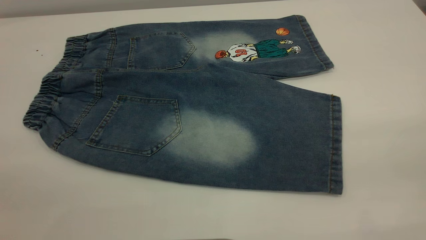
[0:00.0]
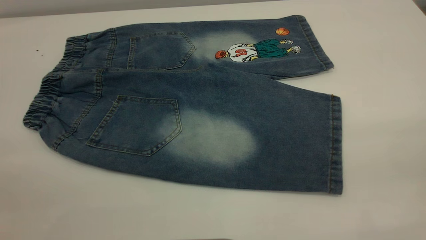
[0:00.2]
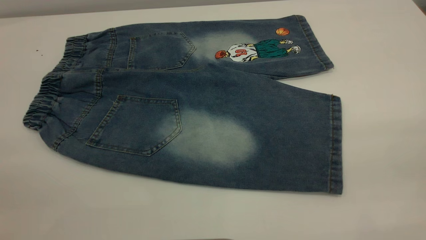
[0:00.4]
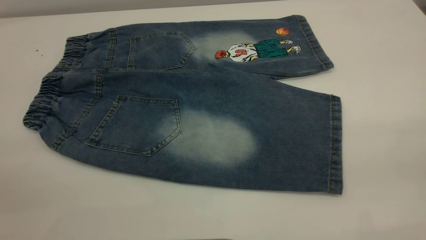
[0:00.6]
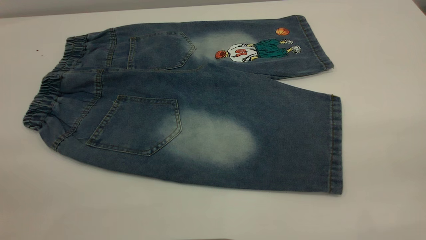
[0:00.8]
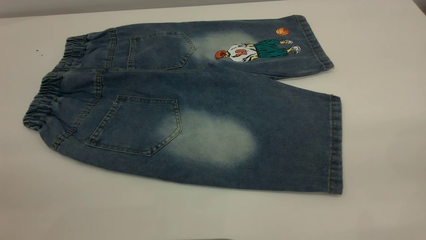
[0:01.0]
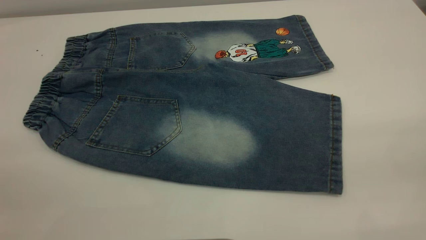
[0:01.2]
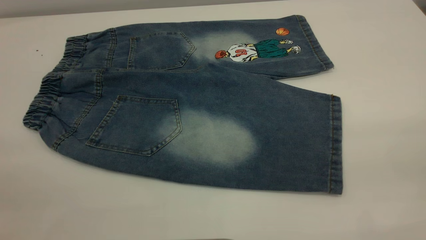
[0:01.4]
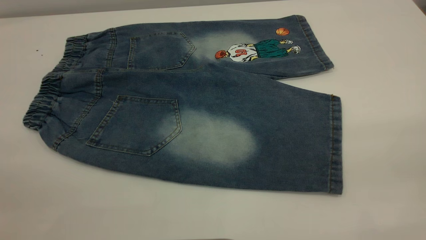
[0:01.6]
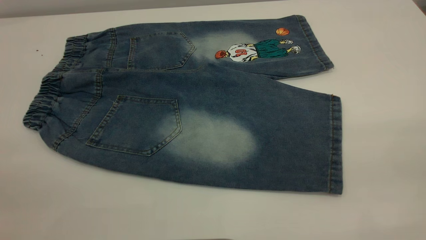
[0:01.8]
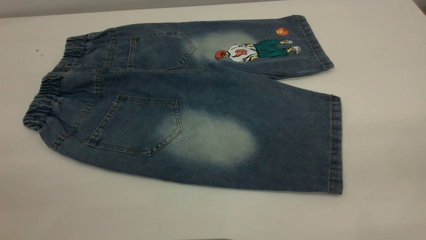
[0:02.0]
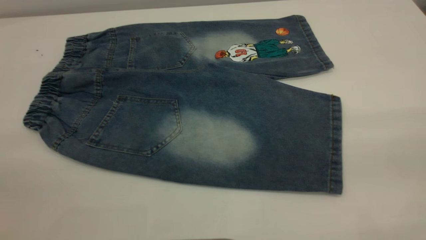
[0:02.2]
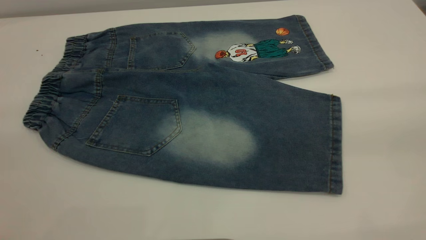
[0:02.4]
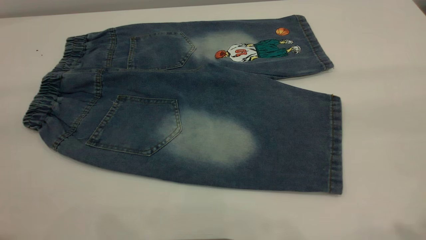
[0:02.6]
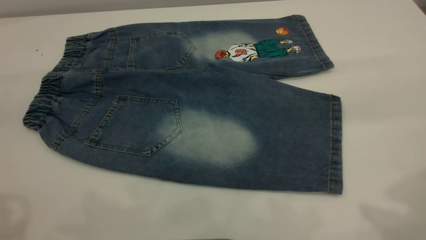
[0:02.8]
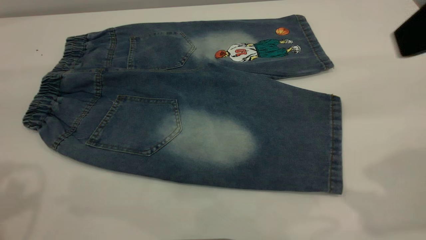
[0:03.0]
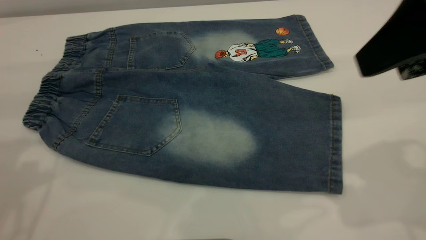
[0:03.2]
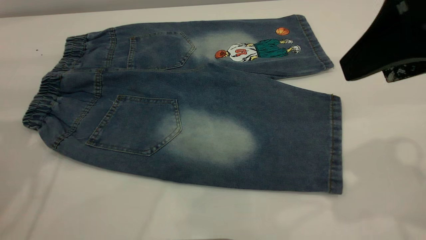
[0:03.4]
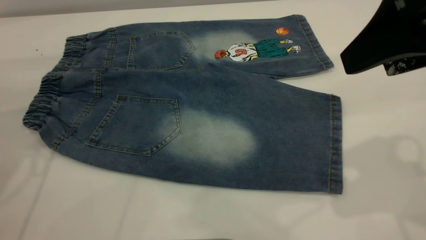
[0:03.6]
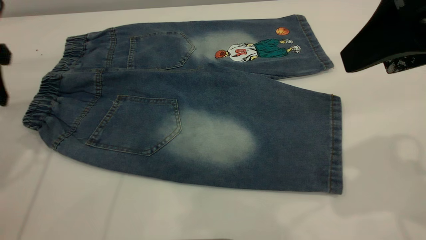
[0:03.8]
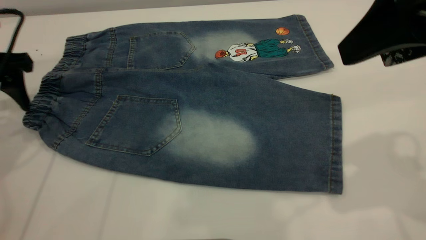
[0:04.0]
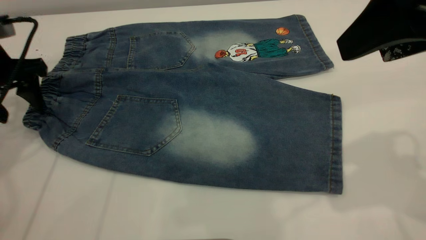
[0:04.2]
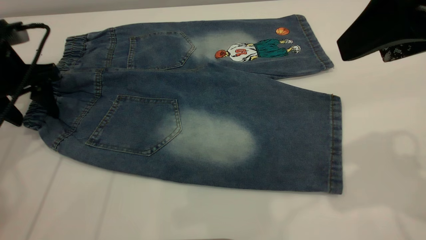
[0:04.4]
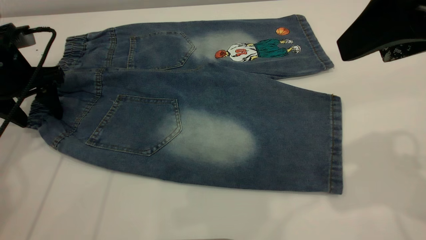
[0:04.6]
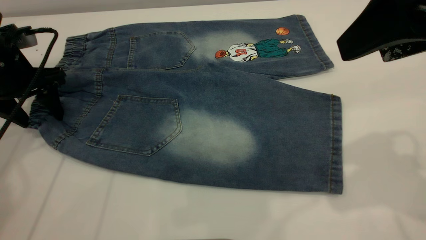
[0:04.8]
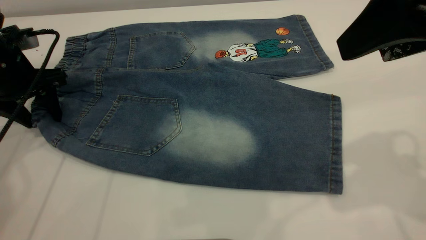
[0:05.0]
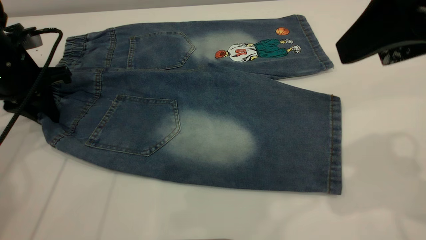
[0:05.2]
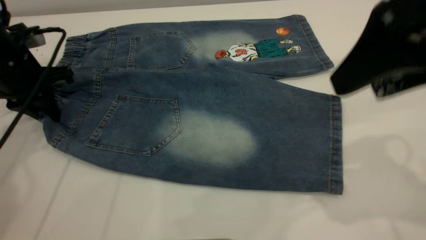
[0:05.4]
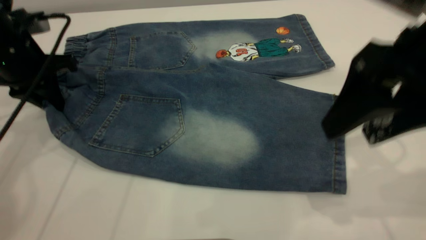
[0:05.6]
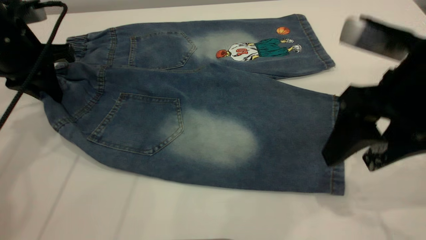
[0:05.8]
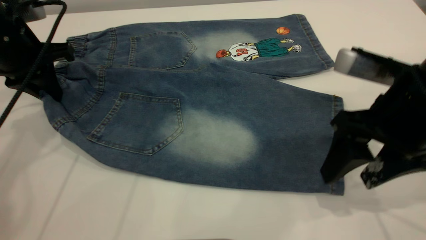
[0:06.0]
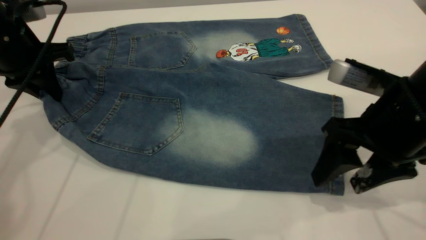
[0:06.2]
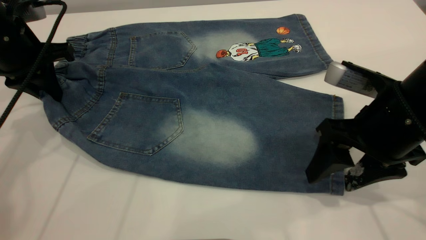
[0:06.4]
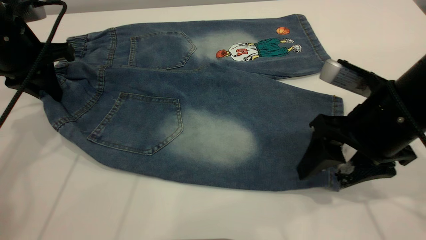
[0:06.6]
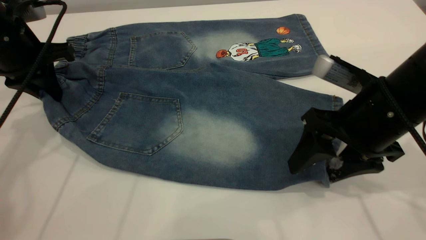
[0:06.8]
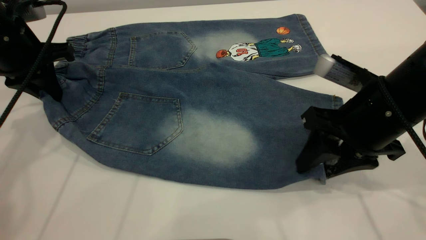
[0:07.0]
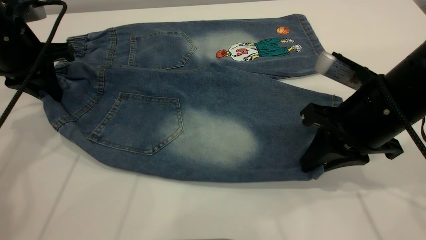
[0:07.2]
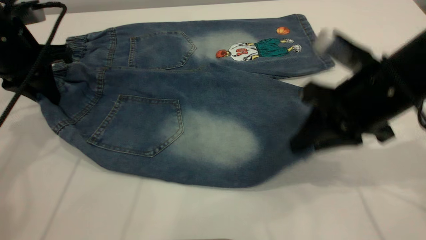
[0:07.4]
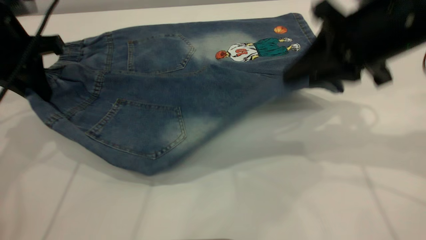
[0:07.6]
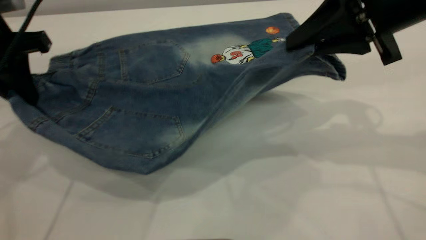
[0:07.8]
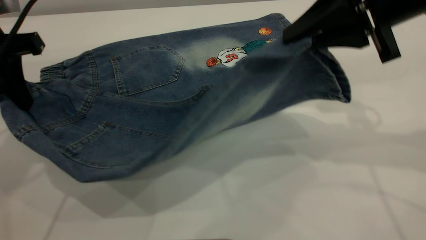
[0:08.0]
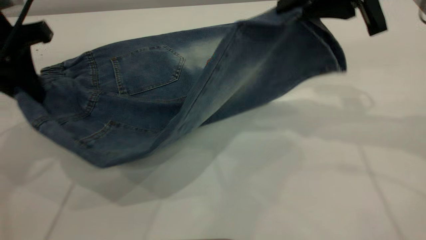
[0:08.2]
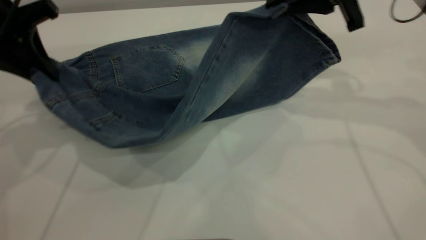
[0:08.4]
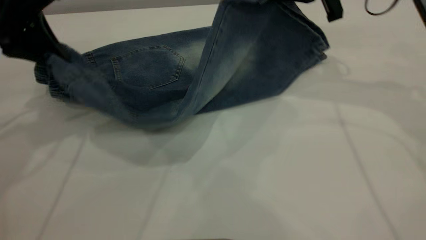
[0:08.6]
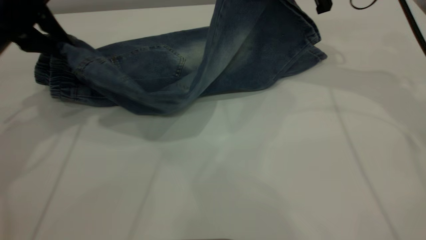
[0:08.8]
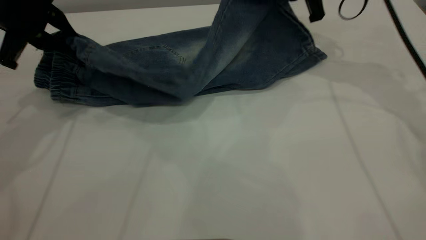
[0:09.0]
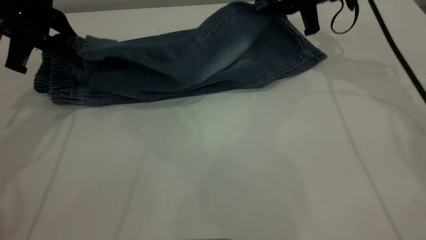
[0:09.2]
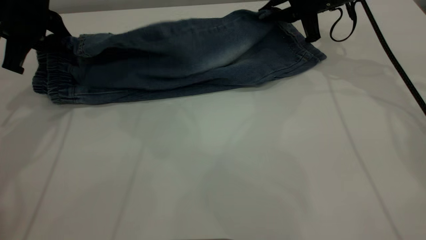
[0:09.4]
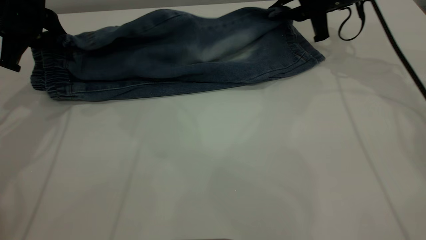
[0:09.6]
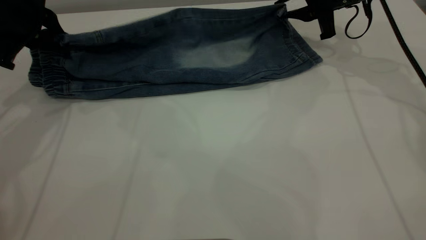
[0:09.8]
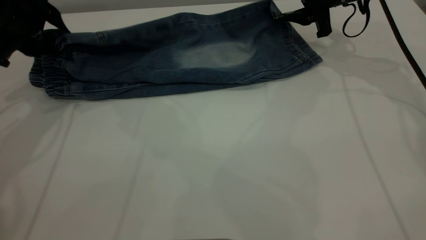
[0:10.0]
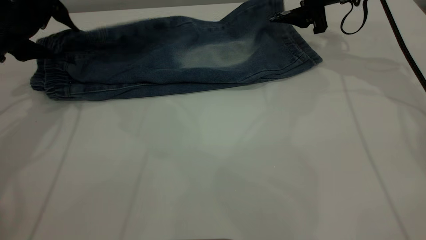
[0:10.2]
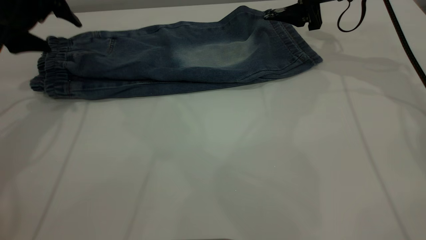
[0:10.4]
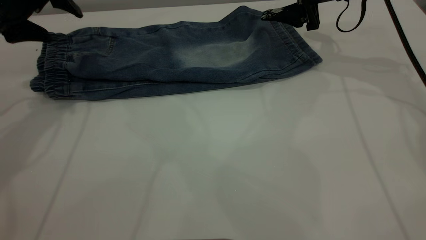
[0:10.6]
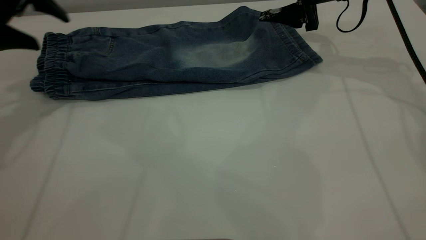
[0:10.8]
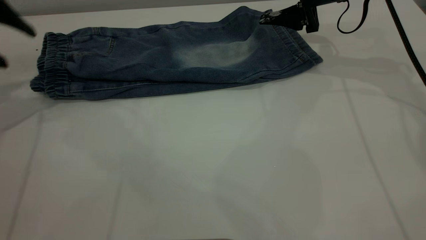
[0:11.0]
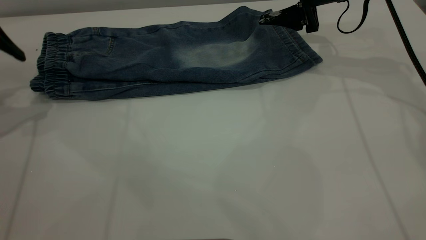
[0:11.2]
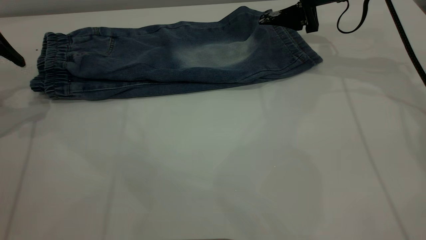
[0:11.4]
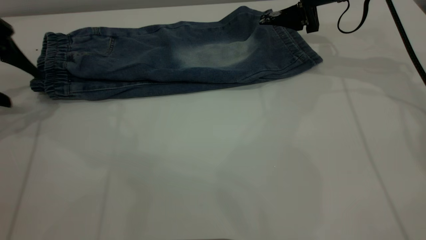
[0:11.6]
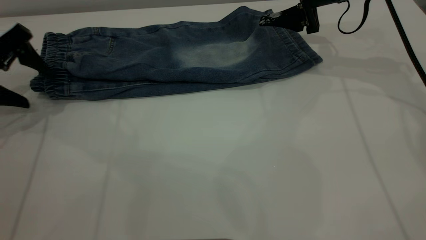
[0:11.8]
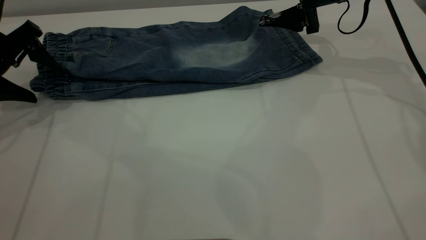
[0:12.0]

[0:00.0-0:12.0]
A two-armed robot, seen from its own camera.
Step, 0:00.0 to 0:11.0: Fold the bottom of the pants upward.
0:00.0 to 0:01.6: Both grippers stay put.
0:01.6 to 0:03.0: The right gripper shifts roughly 20 cm forward.
0:03.0 to 0:04.4: The left gripper shifts roughly 25 cm downward and forward.
0:04.4 to 0:06.0: The left gripper closes its fingers, while the right gripper moves downward, approximately 15 cm.
0:06.0 to 0:07.6: The right gripper is displaced upward and forward by roughly 10 cm, and closes its fingers.
0:07.6 to 0:09.0: The right gripper travels forward by some 20 cm.
0:09.0 to 0:10.4: The right gripper opens, while the left gripper opens up.
0:10.4 to 0:12.0: The left gripper goes roughly 10 cm to the left and downward.

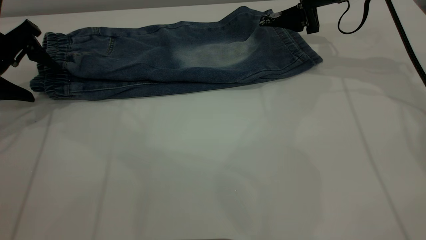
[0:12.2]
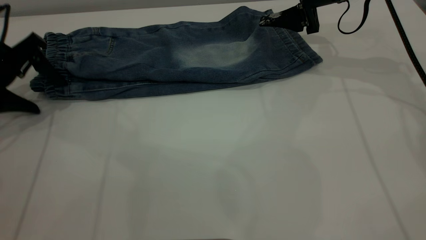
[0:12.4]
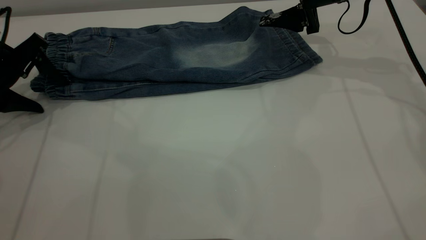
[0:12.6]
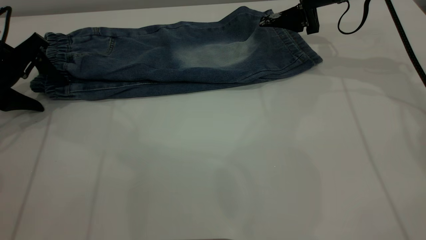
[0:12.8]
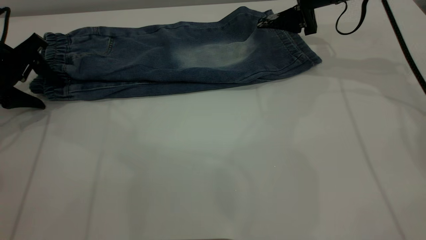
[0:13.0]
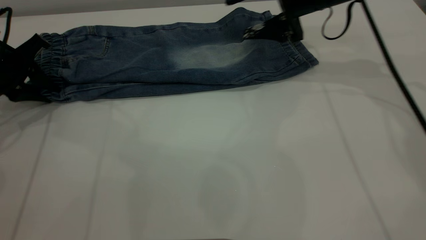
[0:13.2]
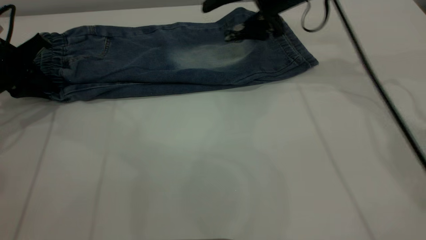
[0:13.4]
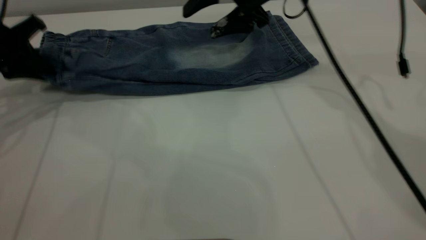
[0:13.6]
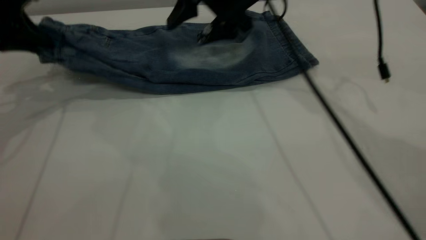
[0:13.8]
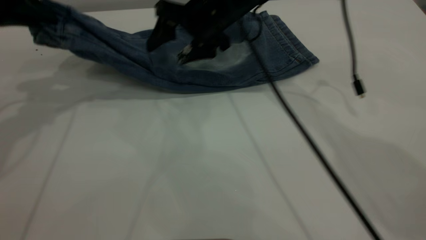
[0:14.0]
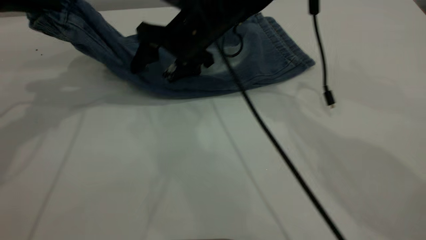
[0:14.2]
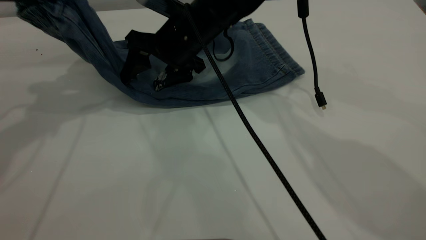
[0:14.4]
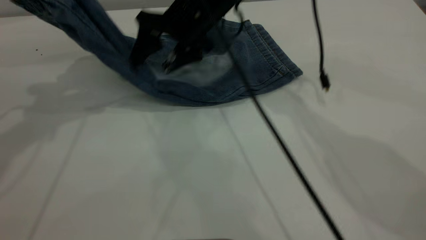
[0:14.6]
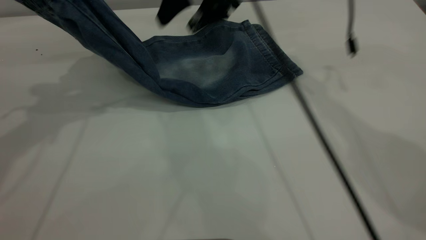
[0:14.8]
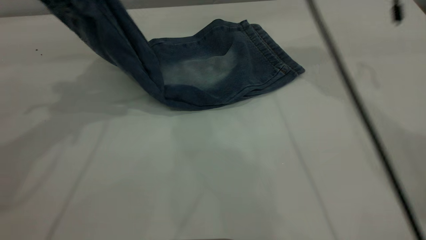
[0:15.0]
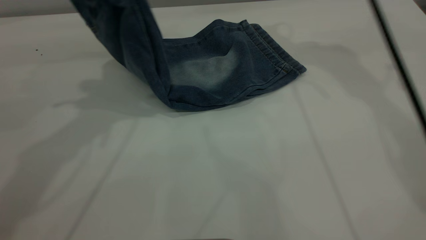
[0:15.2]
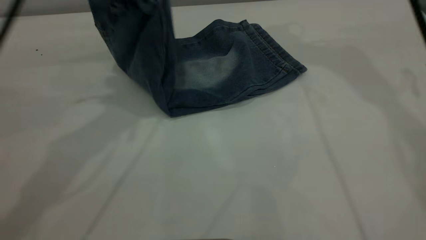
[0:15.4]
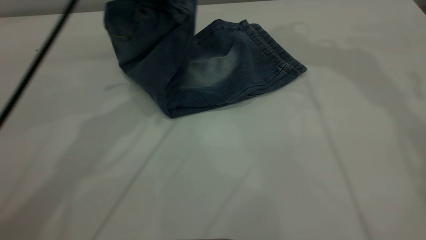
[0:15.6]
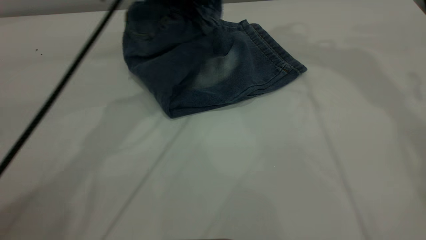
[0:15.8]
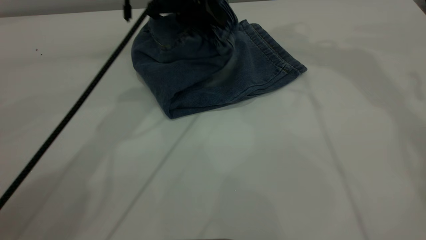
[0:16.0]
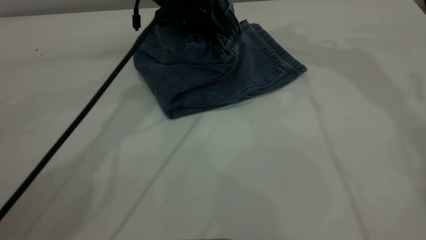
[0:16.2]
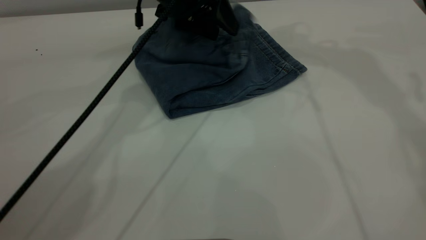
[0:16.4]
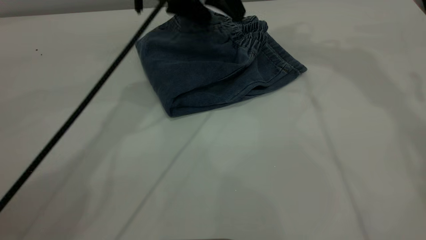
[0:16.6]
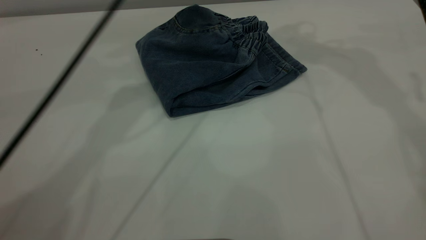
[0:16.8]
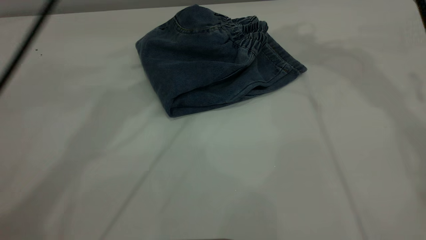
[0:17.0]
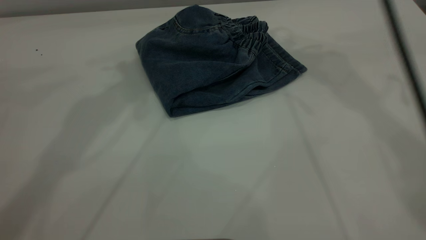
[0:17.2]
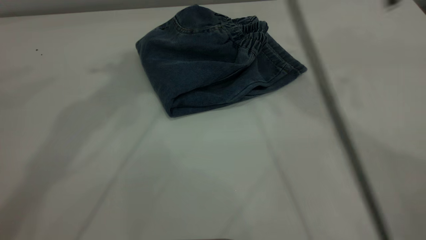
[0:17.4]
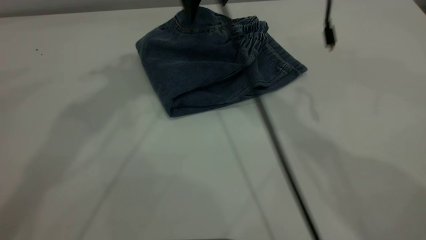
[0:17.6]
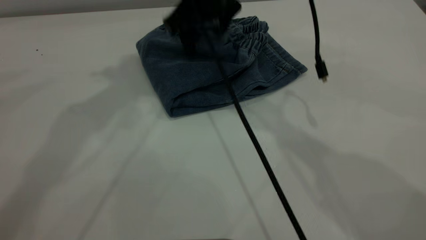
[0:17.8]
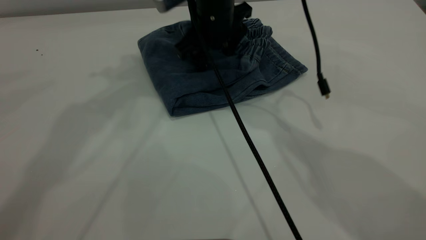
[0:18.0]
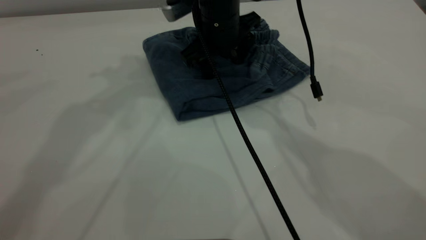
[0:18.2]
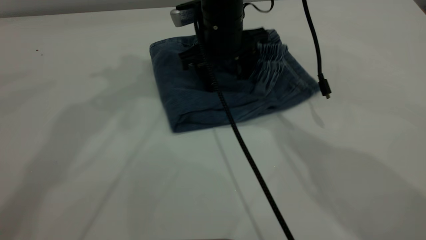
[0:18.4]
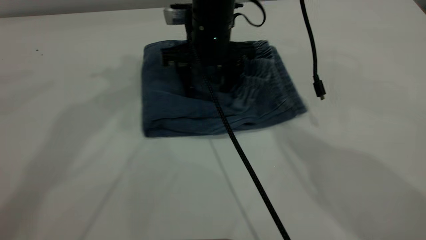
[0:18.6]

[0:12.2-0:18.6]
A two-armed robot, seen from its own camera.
Step, 0:12.2 to 0:17.0: Fold the pants from left to right.
0:12.2 to 0:13.8: The left gripper is displaced upward by some 5 cm, and closes its fingers, while the right gripper travels to the left by approximately 15 cm.
0:13.8 to 0:15.4: The left gripper heads to the right and upward, covering approximately 20 cm, while the right gripper is displaced upward and to the right by approximately 25 cm.
0:15.4 to 0:17.0: The left gripper is displaced upward and forward by about 10 cm, and opens its fingers.
0:17.0 to 0:18.6: The left gripper moves upward, approximately 5 cm, while the right gripper heads downward and to the left, covering about 30 cm.
